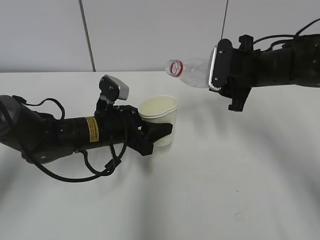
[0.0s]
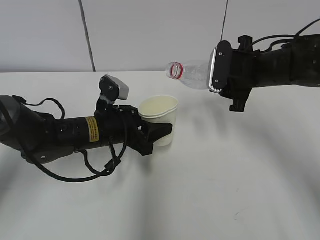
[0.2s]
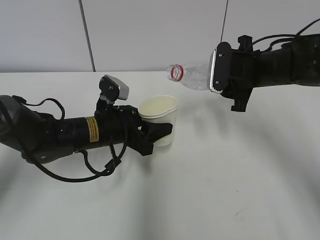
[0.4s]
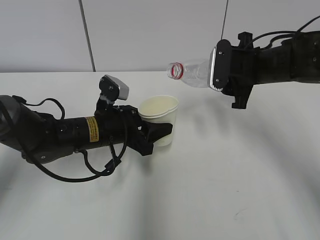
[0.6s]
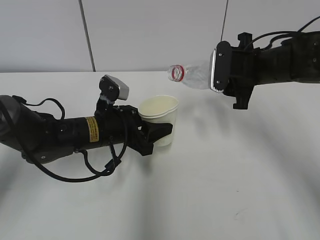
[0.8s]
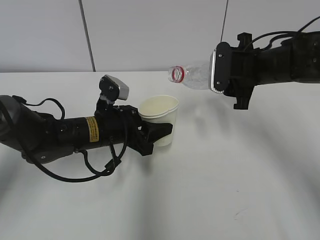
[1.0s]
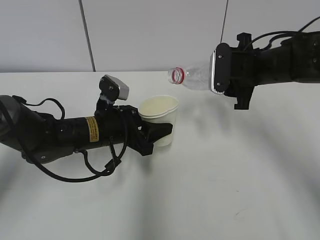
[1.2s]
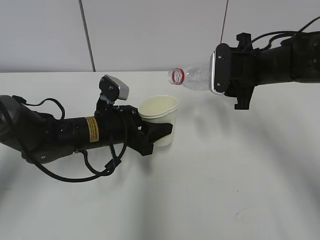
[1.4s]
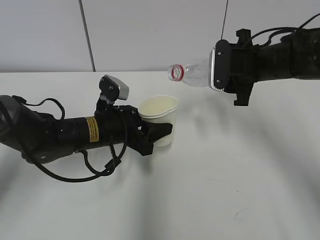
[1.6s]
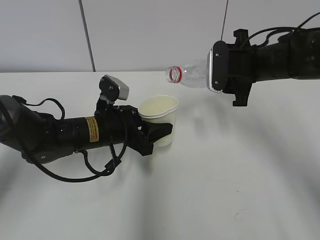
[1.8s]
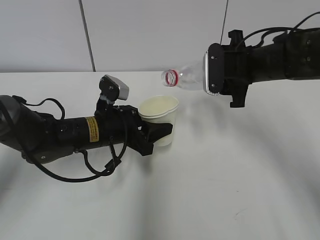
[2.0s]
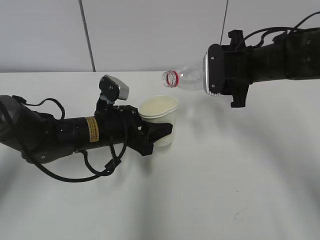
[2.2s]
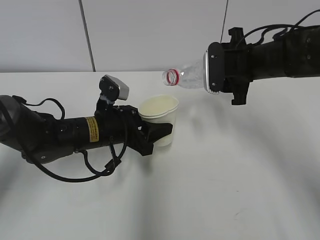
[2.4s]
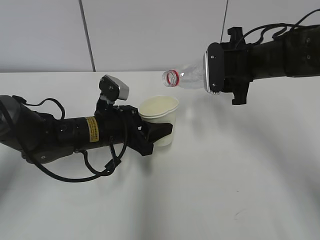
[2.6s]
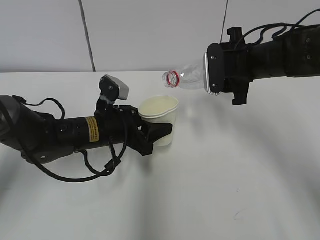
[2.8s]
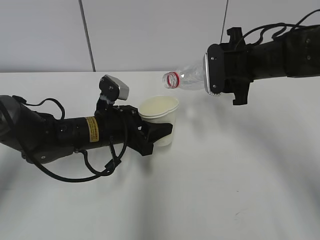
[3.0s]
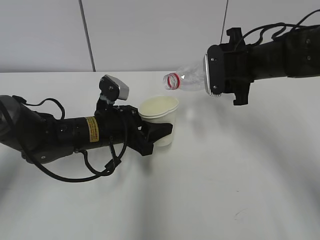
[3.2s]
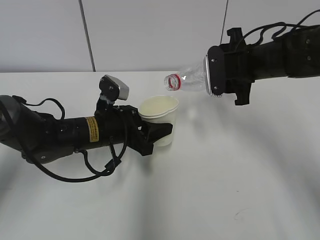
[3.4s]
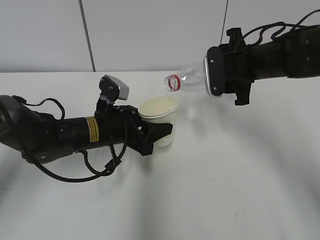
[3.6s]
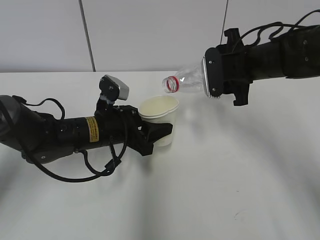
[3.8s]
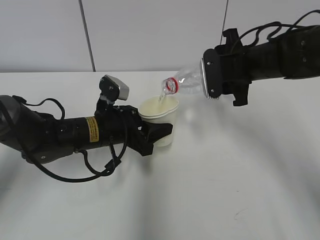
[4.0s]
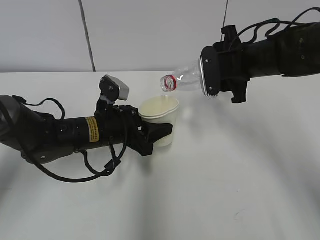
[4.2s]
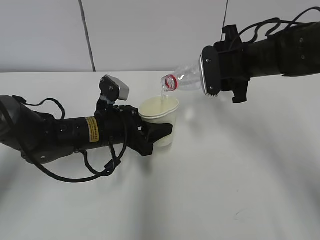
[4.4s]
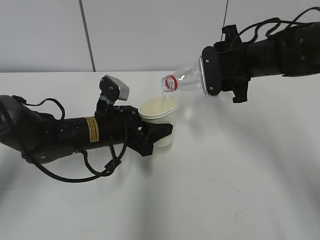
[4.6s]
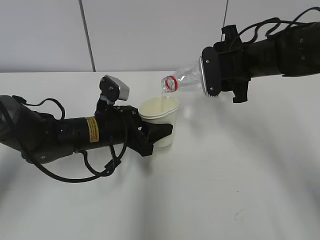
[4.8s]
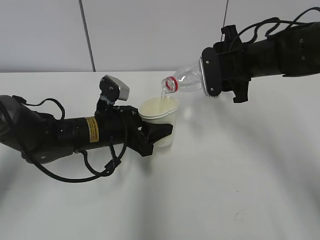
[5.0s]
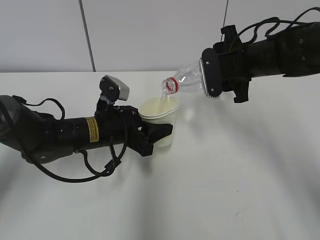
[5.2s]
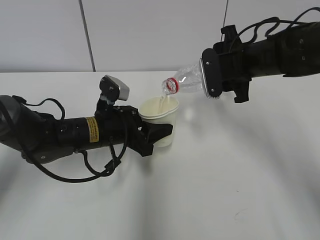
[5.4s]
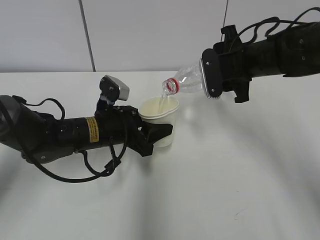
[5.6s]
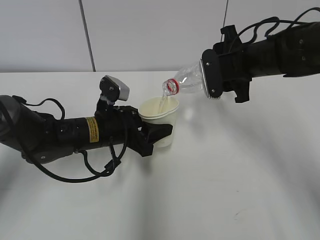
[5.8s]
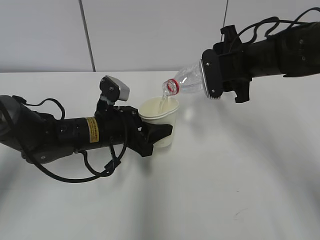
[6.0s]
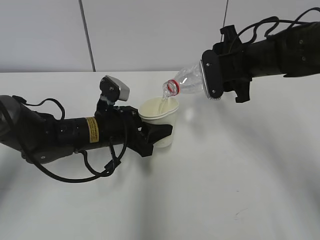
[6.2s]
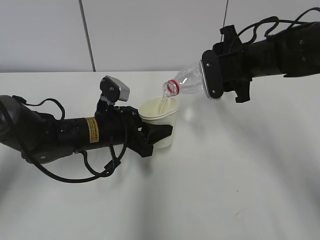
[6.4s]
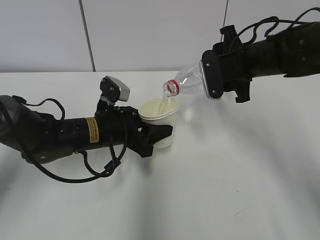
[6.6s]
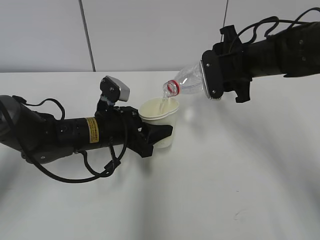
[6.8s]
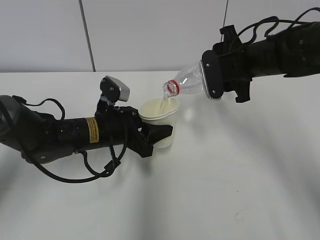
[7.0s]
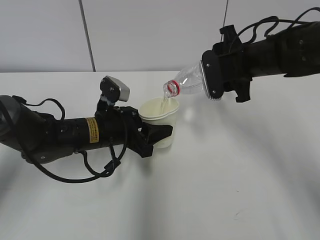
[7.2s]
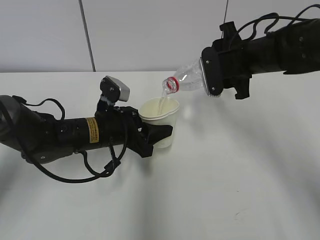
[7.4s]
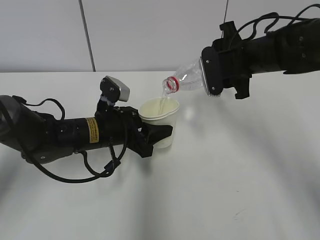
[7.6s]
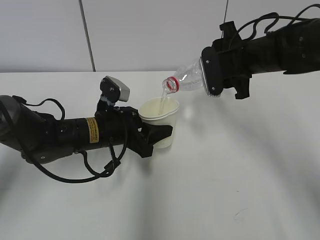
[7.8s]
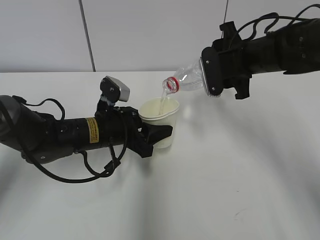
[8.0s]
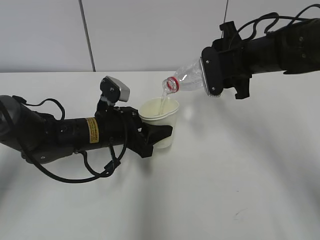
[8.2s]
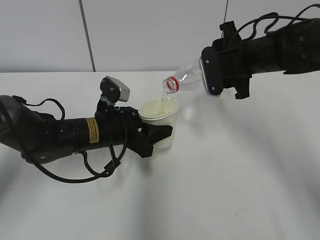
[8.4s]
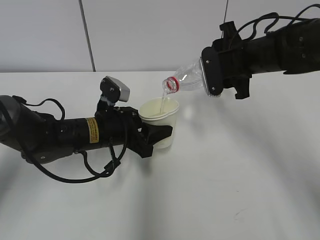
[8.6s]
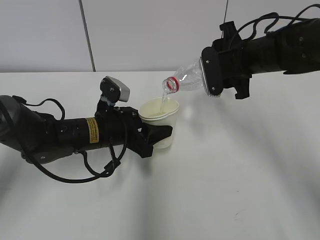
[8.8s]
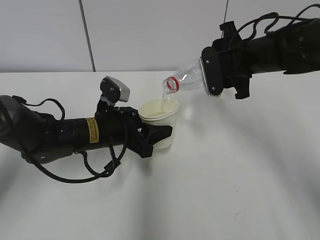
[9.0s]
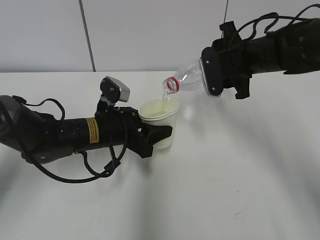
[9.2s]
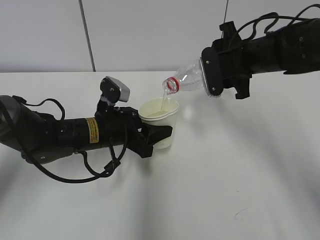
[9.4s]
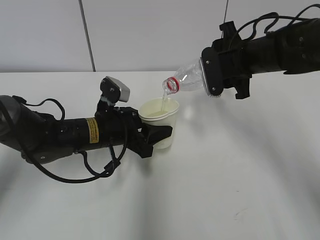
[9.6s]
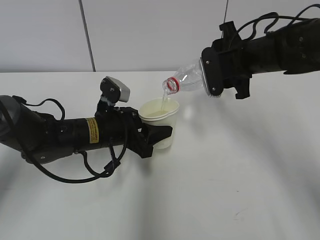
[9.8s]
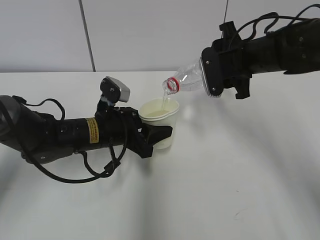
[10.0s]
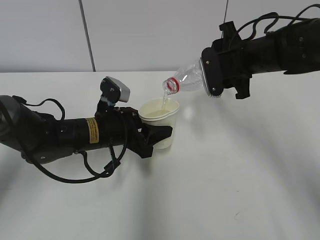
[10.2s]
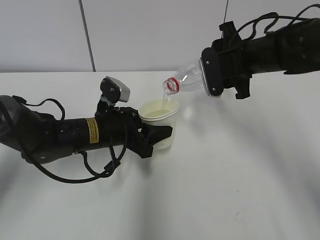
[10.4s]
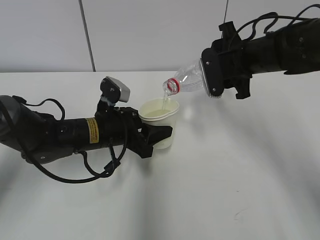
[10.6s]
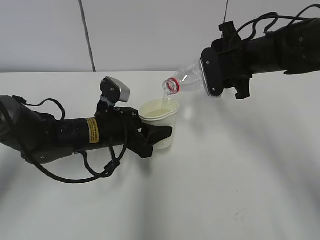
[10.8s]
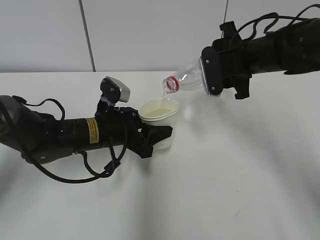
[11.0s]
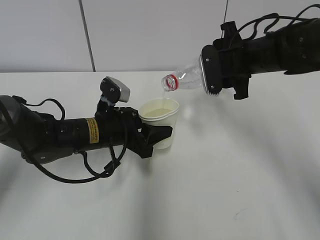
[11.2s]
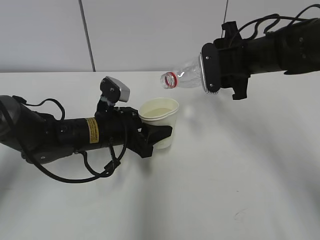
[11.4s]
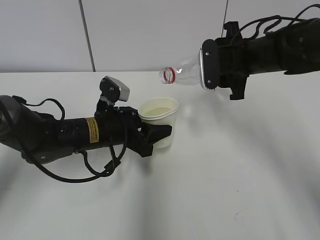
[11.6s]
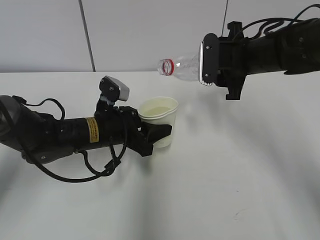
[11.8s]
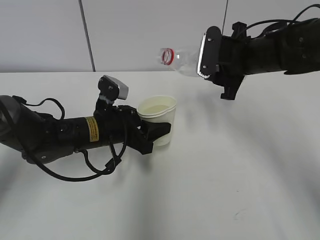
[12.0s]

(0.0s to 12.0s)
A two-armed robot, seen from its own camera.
Step, 0.6s - 6.4s: Pour water with the right hand.
Step, 6.6s - 9.2s: Collect water with the right hand.
Step, 9.4s - 11.8s: Place the paper cup with the left hand.
0.0s - 3.0s: There are only small adjustments of the grippers.
3.0s - 4.4s: The grippers stay close to where they were, moving slightly.
4.4s - 6.0s: Both grippers stay about where they are.
6.0s - 10.4s: Neither gripper changes place.

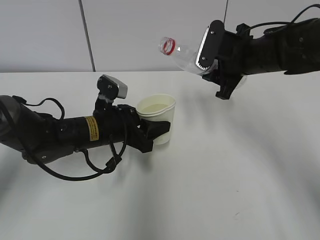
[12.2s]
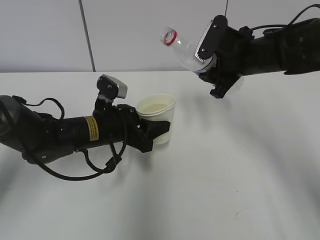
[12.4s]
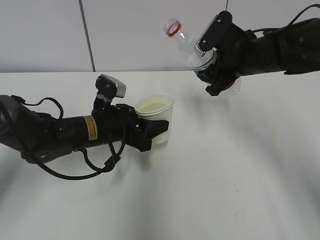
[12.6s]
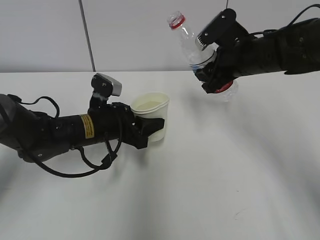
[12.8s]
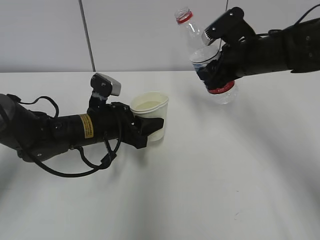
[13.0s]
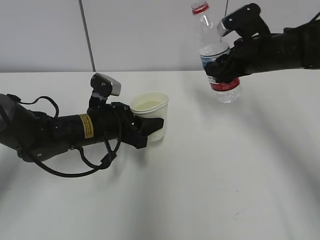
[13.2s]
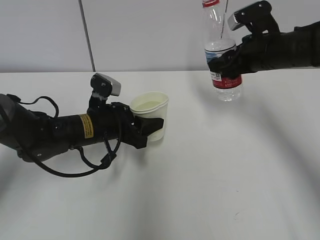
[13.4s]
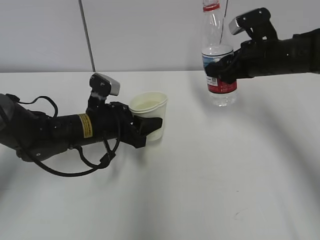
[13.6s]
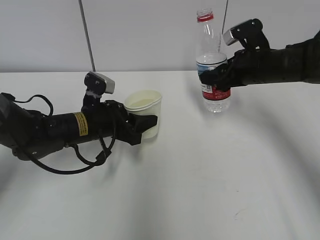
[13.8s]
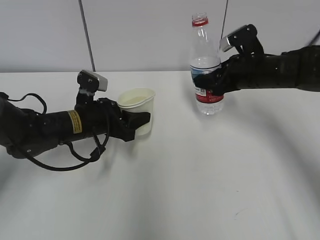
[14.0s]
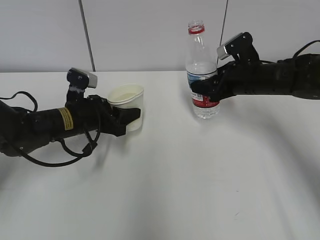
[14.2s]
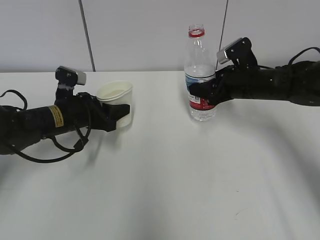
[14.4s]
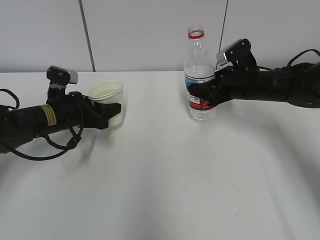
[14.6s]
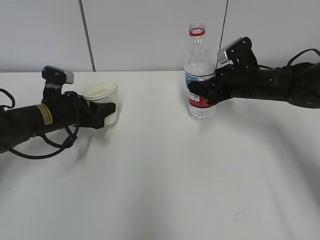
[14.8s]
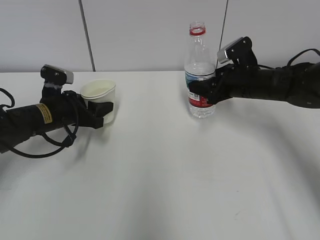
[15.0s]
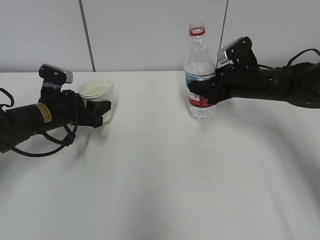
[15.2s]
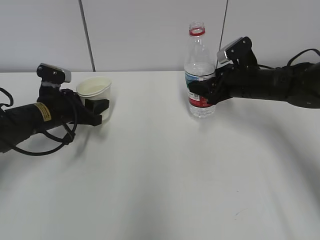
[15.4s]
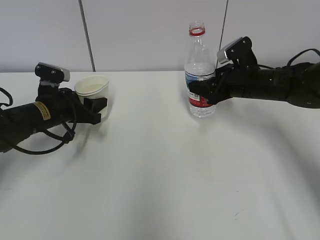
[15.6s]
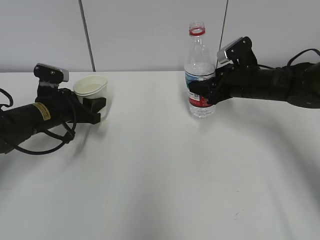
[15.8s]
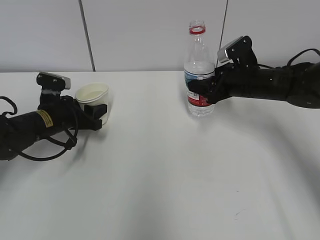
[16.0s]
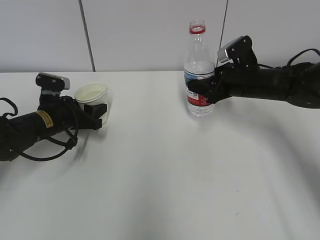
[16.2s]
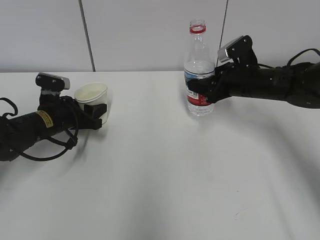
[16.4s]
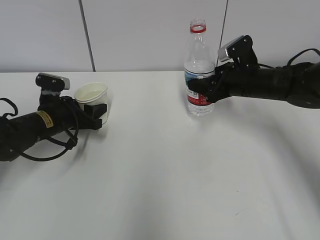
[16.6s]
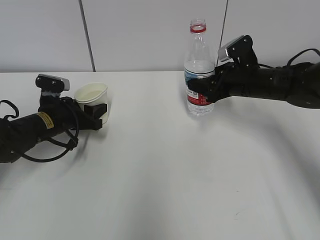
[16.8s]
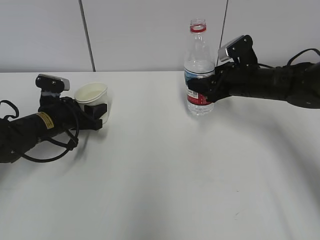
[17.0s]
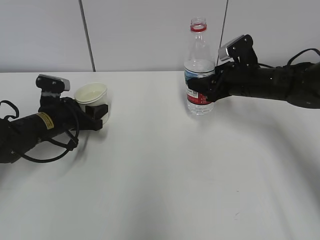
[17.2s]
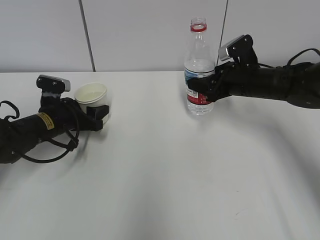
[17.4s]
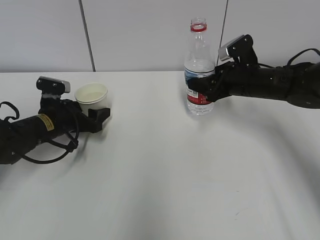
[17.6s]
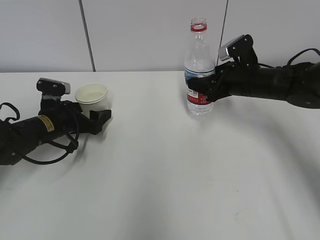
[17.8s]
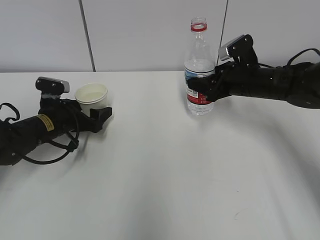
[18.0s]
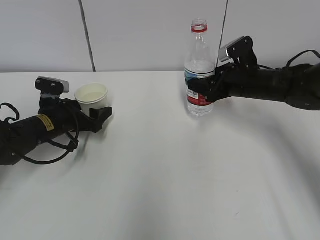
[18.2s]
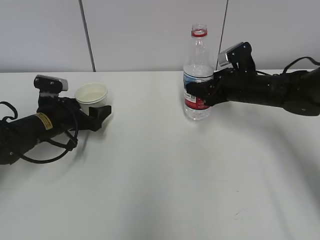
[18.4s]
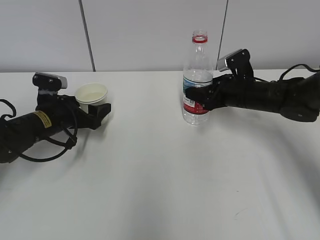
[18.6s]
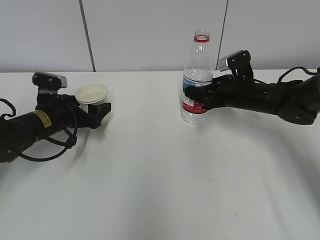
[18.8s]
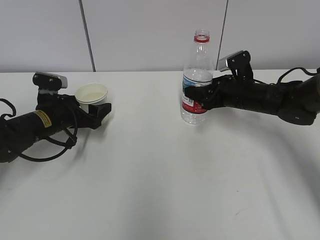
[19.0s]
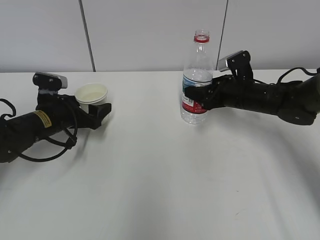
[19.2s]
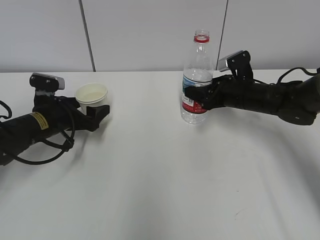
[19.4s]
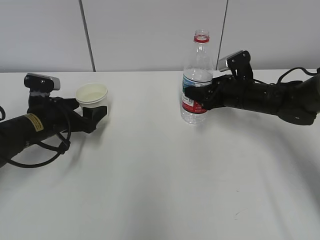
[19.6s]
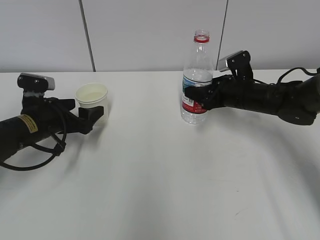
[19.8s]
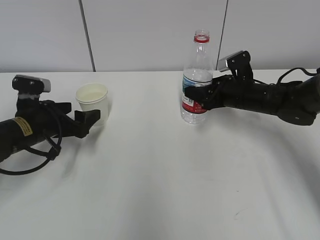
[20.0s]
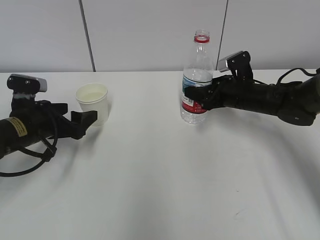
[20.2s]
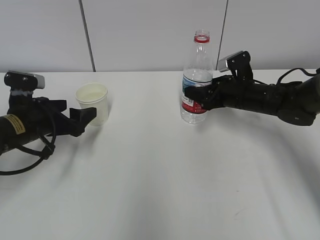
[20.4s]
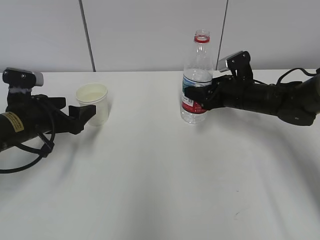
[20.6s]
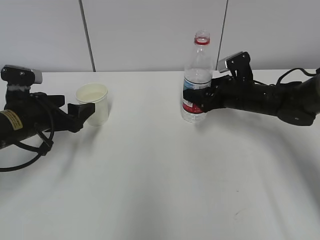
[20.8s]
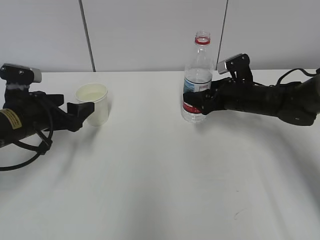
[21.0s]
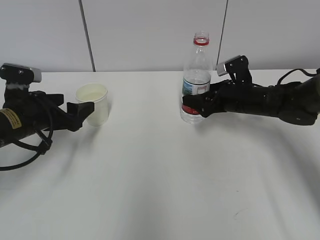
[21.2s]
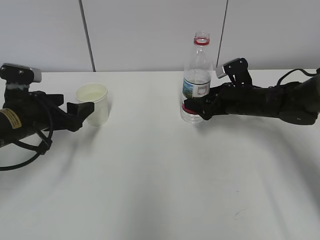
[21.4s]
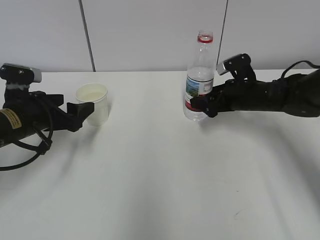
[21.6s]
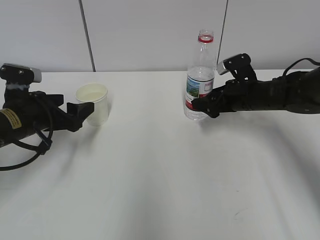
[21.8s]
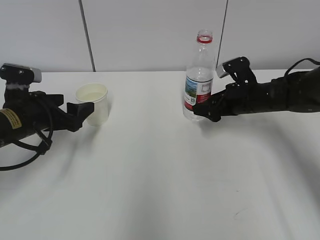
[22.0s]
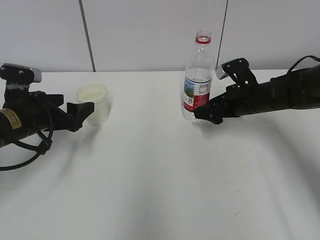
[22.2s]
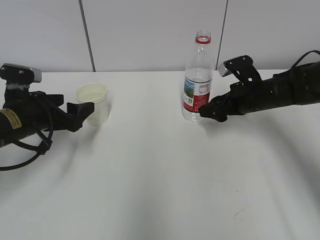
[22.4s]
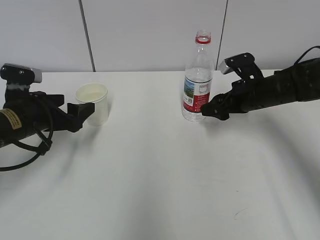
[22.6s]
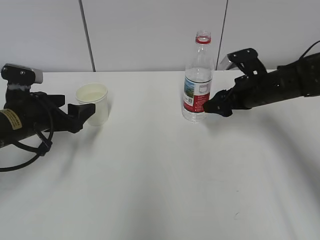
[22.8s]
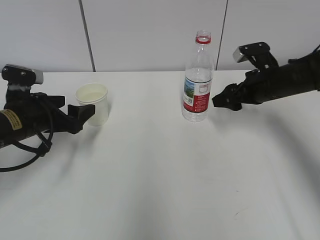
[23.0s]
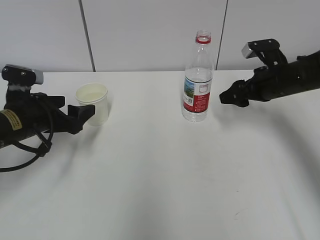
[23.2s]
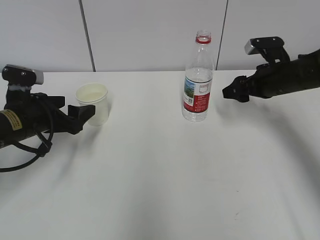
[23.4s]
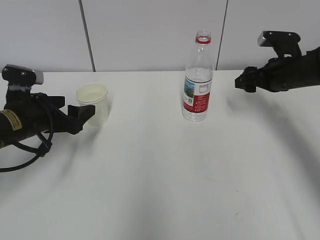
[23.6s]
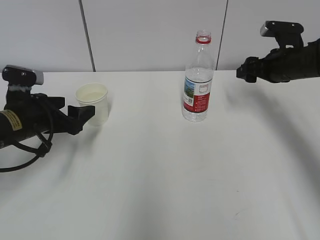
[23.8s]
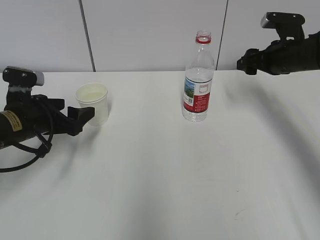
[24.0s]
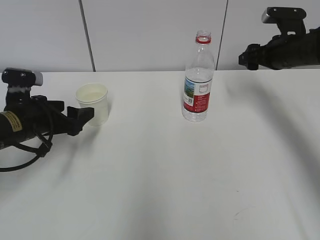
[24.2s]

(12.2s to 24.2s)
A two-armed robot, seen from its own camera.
Step, 12.2s - 15.6s: Place the water bottle with the right hand.
12.2s - 13.8s: The right gripper shifts by roughly 5 cm.
13.8s - 15.2s: The left gripper is displaced to the left by roughly 10 cm.
15.2s - 16.6s: The grippers stay close to where they were, moving slightly.
16.6s - 18.2s: The left gripper opens up.
18.2s - 19.8s: The grippers stay close to where they were, moving slightly.
19.8s - 21.2s: The right gripper opens up.
22.6s - 24.2s: The right gripper goes approximately 10 cm upward and to the right.
